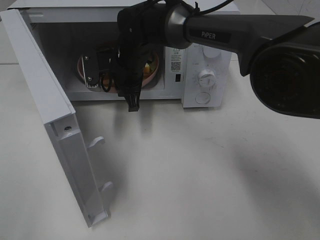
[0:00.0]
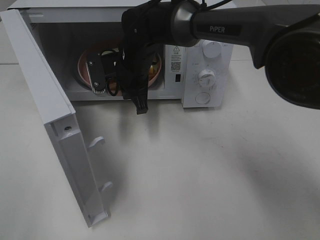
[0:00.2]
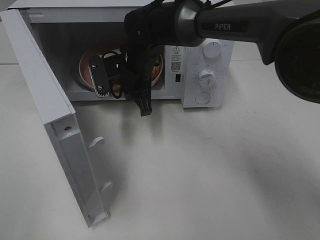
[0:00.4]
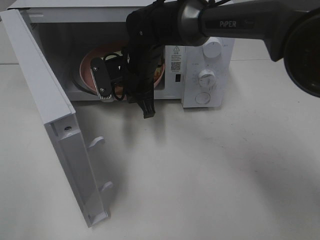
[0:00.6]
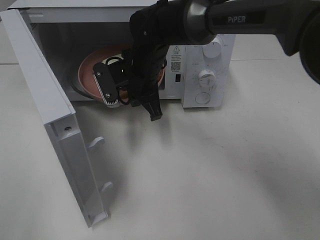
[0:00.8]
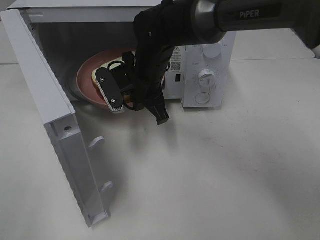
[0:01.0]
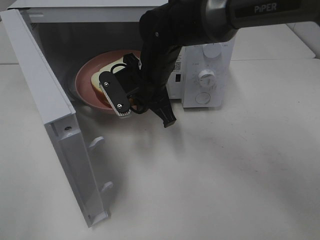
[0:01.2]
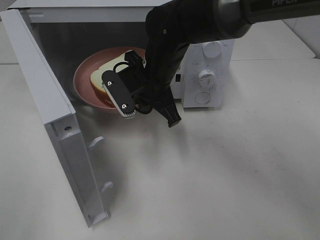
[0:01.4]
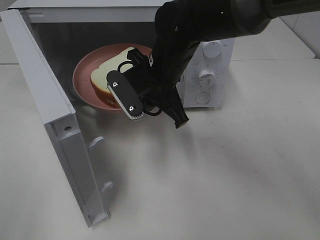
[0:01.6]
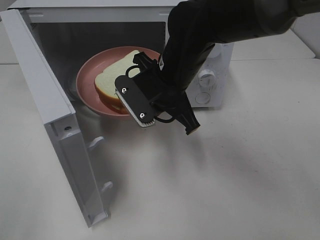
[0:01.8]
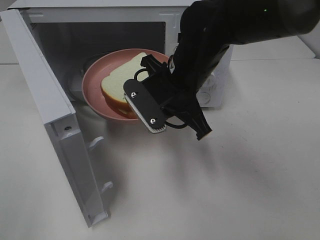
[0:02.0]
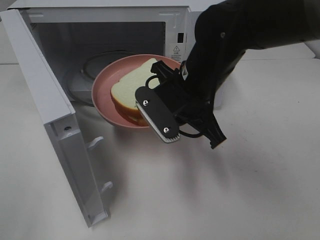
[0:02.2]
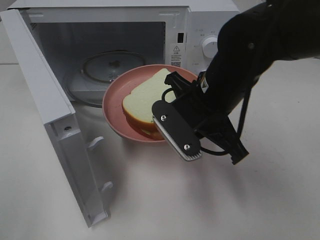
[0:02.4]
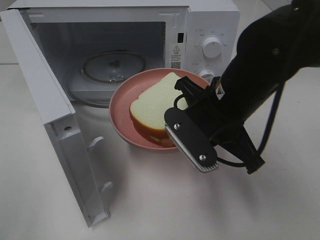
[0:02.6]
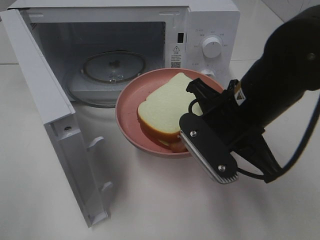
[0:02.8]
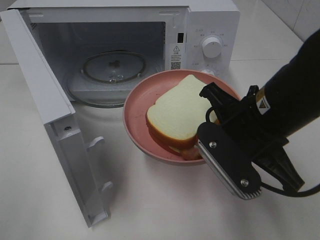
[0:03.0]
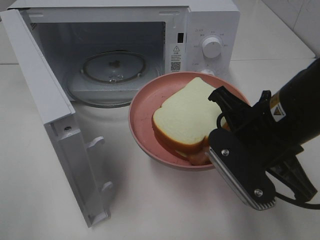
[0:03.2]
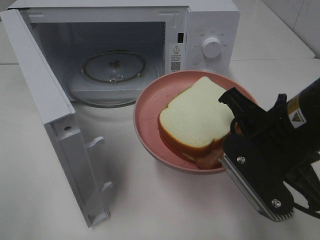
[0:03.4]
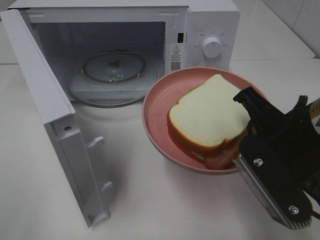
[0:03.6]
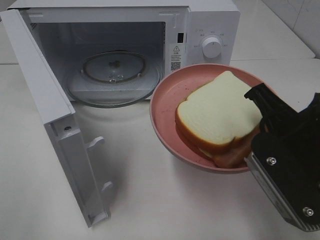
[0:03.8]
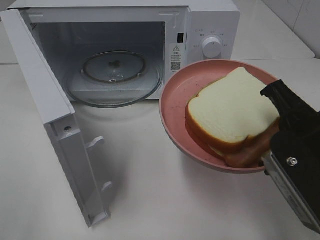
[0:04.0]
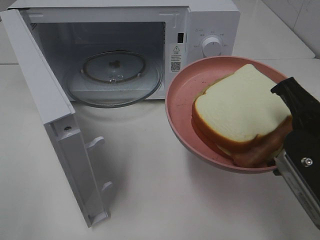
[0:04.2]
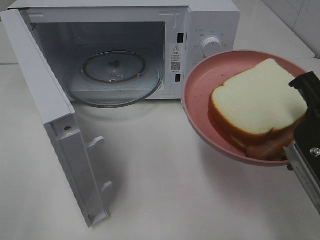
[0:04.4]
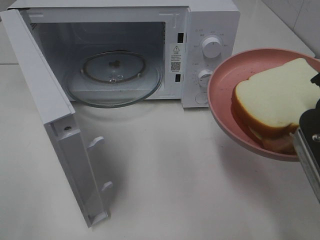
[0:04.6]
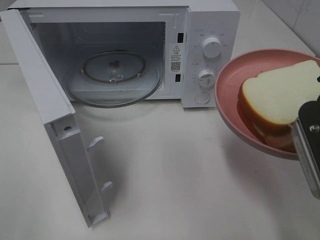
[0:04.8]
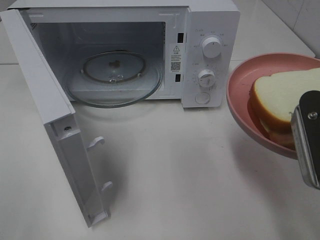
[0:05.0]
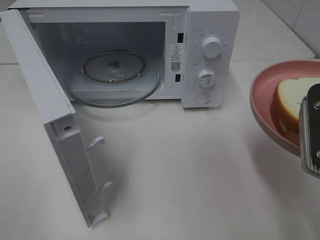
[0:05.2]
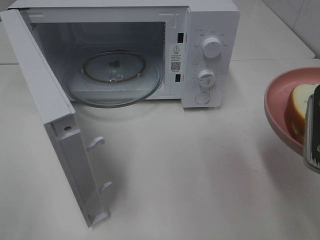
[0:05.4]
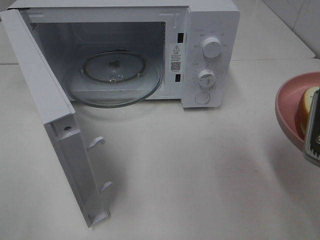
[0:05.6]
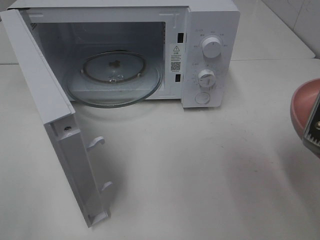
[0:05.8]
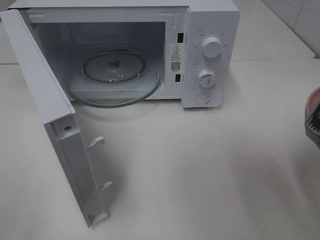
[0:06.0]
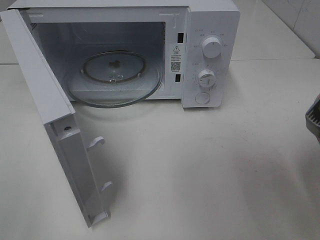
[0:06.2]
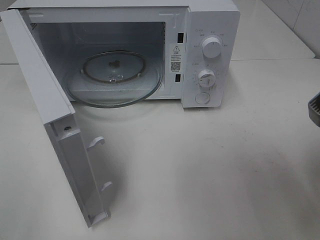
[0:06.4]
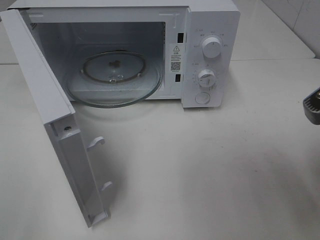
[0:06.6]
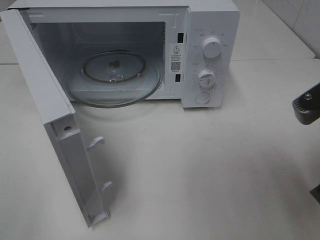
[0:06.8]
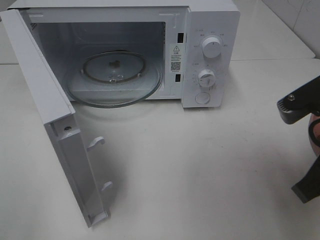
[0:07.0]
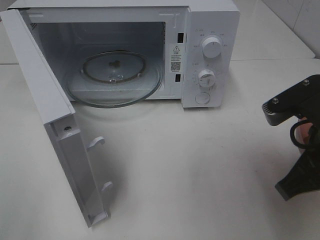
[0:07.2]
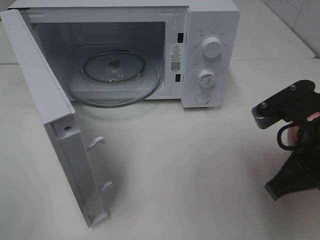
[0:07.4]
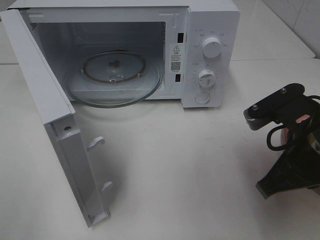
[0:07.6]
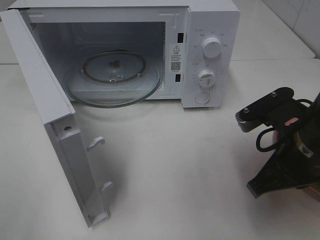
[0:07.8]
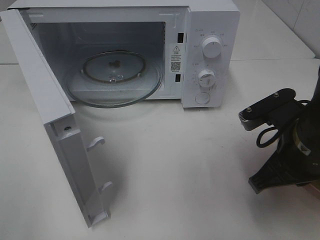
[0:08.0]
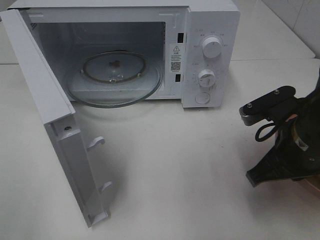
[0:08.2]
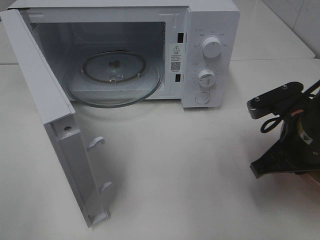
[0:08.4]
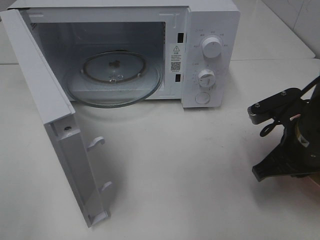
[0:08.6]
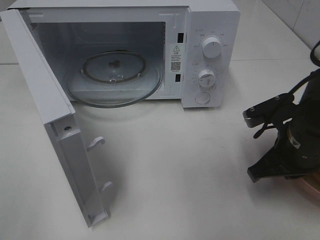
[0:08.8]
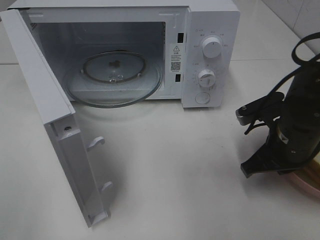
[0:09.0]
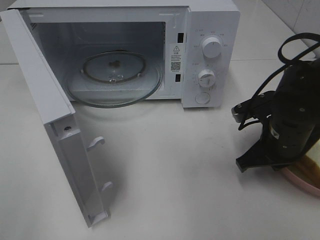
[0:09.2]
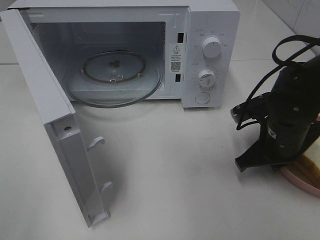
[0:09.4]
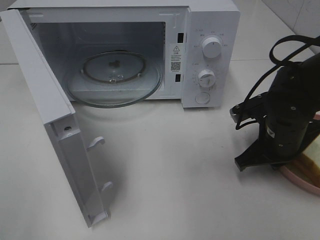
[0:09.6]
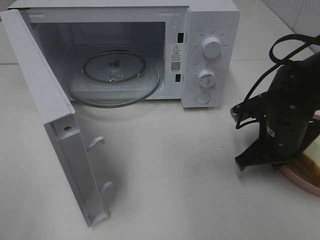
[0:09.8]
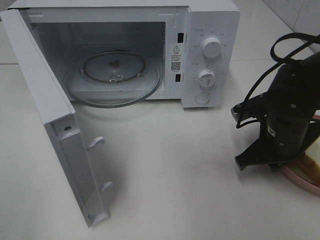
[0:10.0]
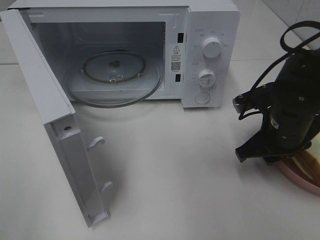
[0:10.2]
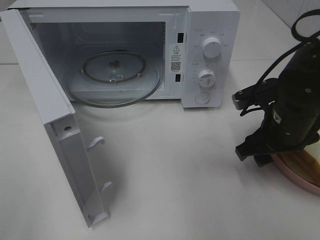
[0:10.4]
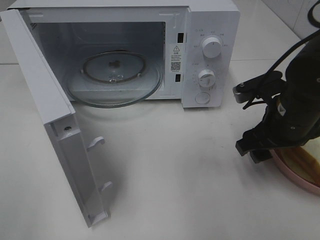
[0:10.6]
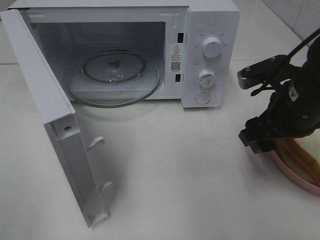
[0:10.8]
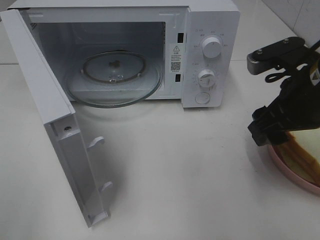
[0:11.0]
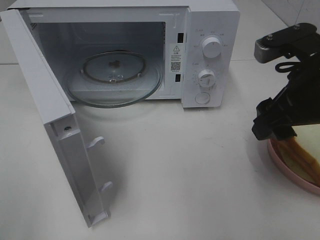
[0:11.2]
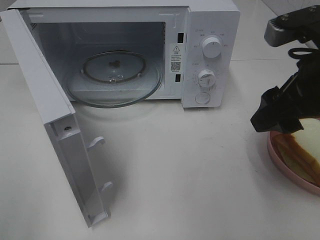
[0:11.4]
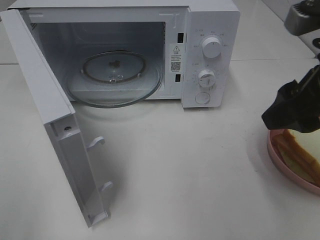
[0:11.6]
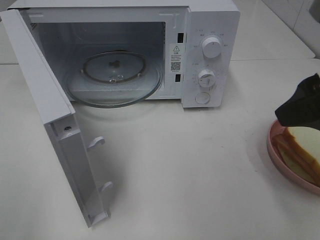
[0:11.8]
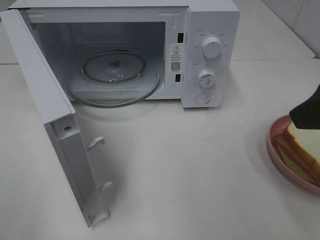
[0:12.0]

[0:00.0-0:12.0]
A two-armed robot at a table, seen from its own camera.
Task of the whole recording: Heat Sandwich.
Step, 0:00.0 to 0:11.2: Right hand: place the plate on the table.
0:00.0 to 0:01.6: The right gripper goes approximately 10 cm backward and to the right.
0:01.6 to 0:03.0: The right gripper heads backward and to the right, covering some 15 cm.
0:03.0 to 0:04.4: The right gripper is displaced to the right and backward by roughly 10 cm.
0:06.0 to 0:07.6: The right gripper heads downward and forward, covering about 10 cm.
0:07.6 to 0:09.0: The right gripper is displaced forward and downward by approximately 10 cm.
0:09.0 to 0:10.4: The right gripper opens up.
0:10.4 to 0:12.0: The right gripper heads upward and backward, covering some 20 cm.

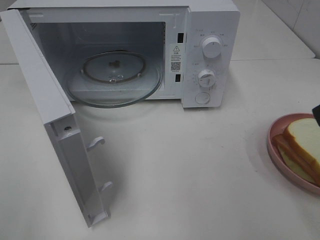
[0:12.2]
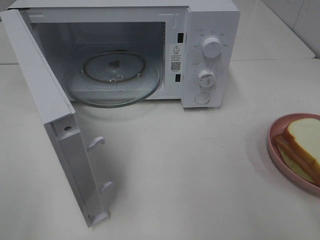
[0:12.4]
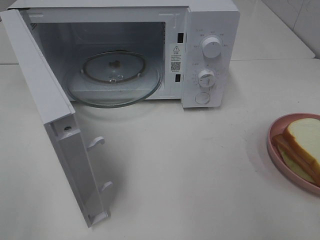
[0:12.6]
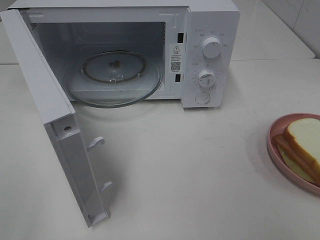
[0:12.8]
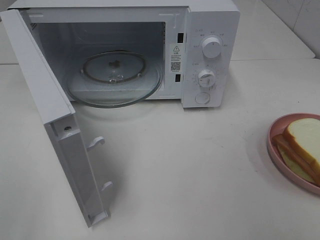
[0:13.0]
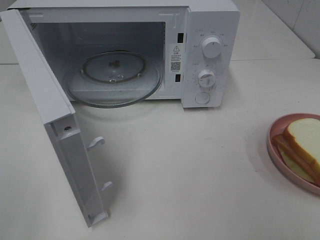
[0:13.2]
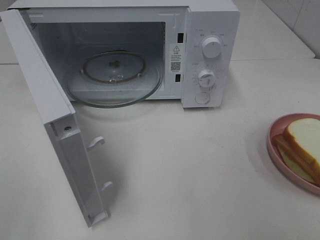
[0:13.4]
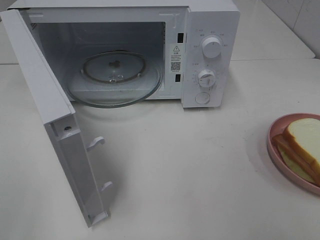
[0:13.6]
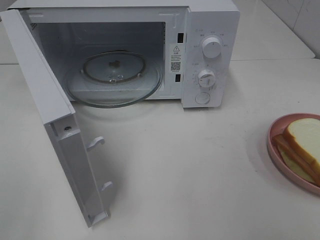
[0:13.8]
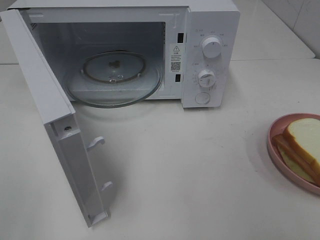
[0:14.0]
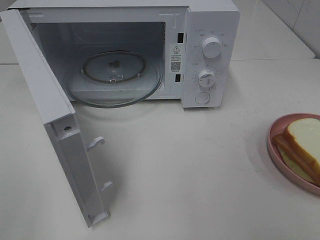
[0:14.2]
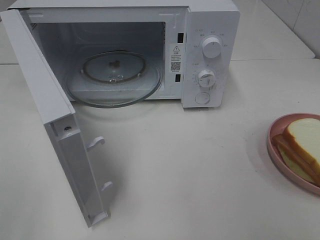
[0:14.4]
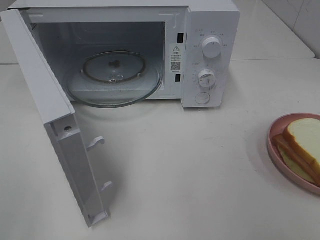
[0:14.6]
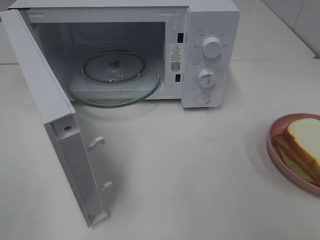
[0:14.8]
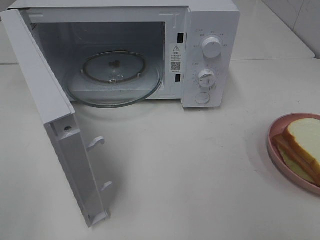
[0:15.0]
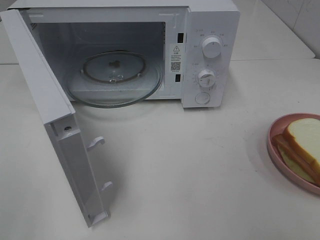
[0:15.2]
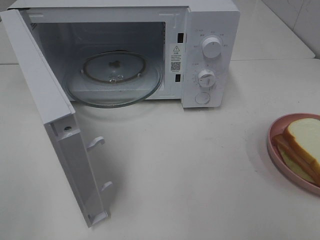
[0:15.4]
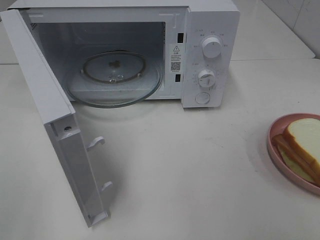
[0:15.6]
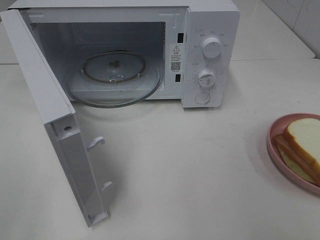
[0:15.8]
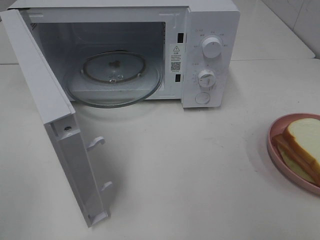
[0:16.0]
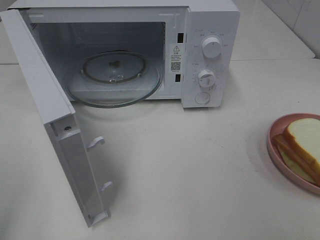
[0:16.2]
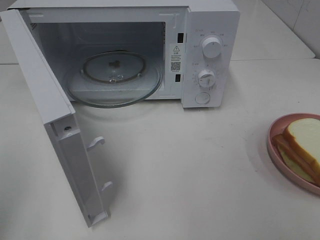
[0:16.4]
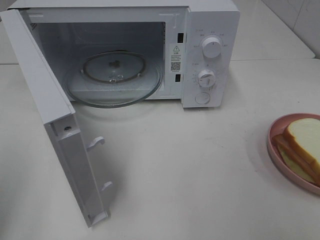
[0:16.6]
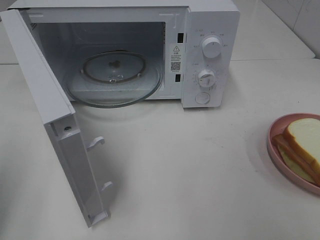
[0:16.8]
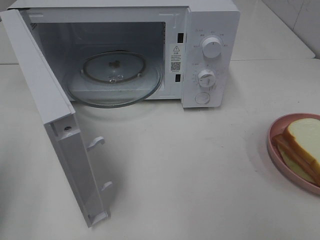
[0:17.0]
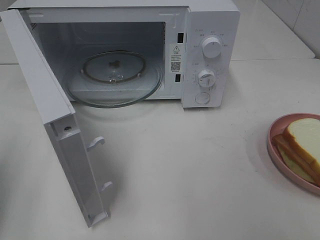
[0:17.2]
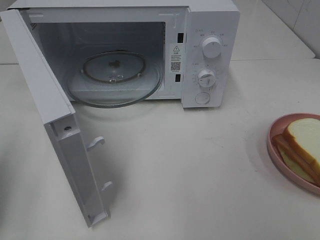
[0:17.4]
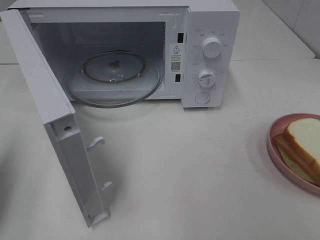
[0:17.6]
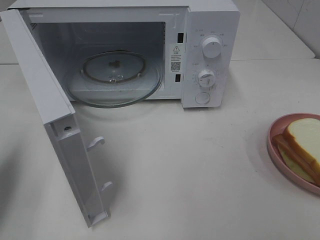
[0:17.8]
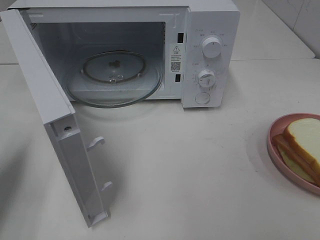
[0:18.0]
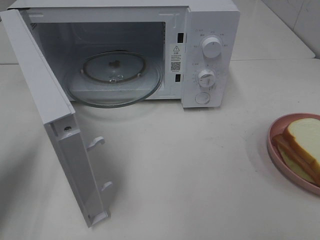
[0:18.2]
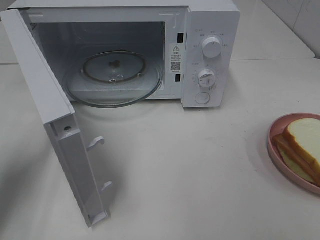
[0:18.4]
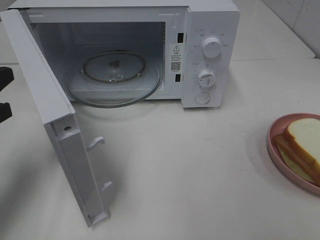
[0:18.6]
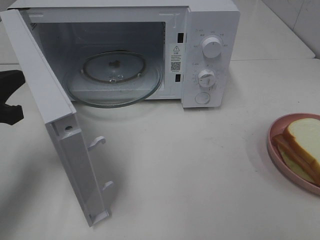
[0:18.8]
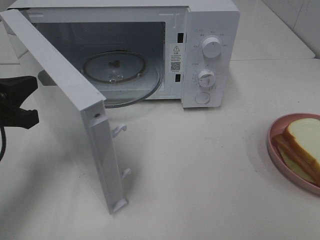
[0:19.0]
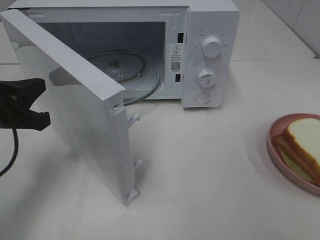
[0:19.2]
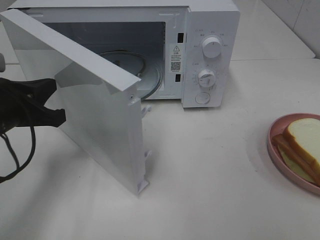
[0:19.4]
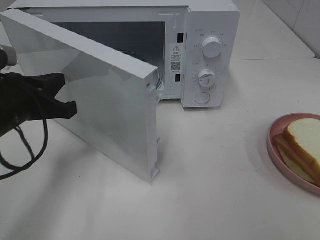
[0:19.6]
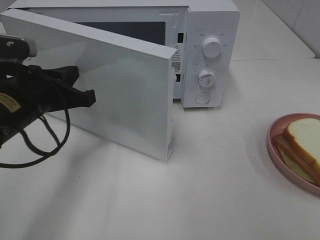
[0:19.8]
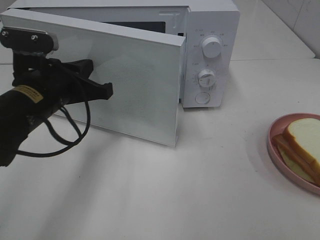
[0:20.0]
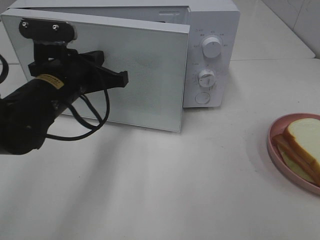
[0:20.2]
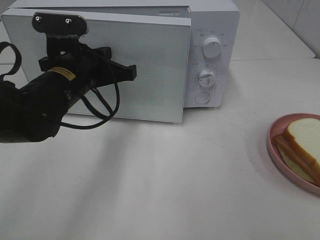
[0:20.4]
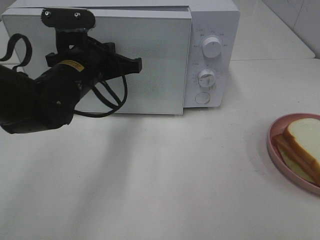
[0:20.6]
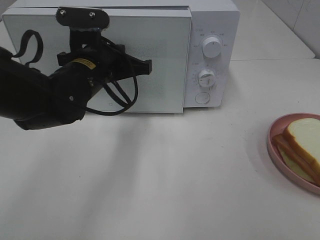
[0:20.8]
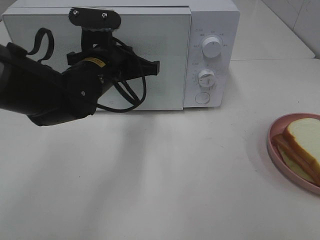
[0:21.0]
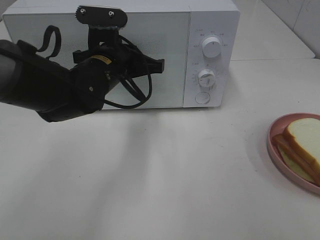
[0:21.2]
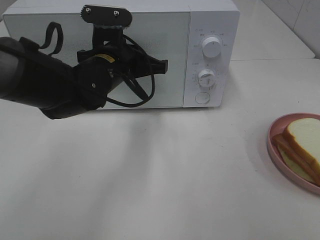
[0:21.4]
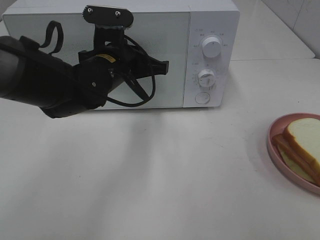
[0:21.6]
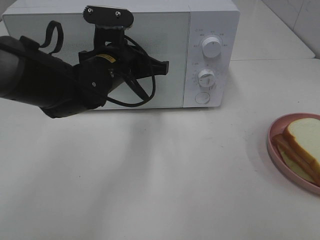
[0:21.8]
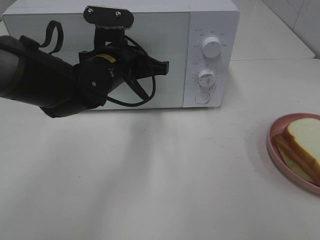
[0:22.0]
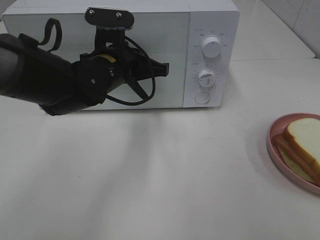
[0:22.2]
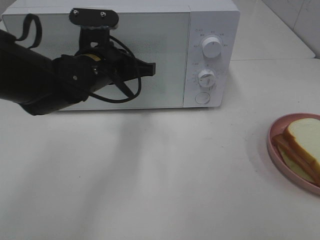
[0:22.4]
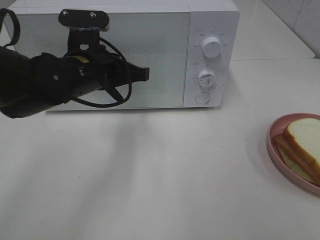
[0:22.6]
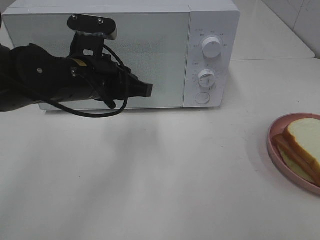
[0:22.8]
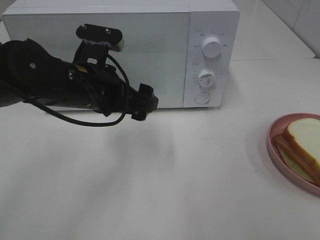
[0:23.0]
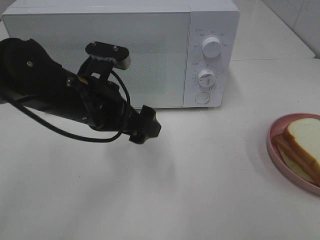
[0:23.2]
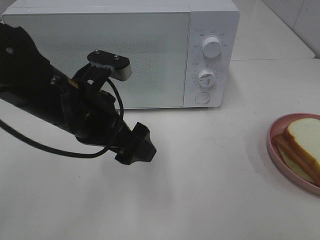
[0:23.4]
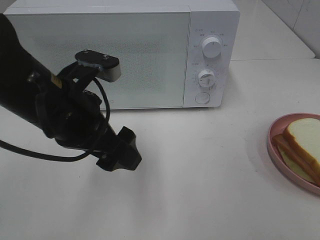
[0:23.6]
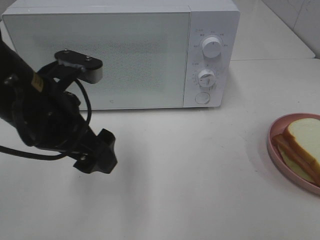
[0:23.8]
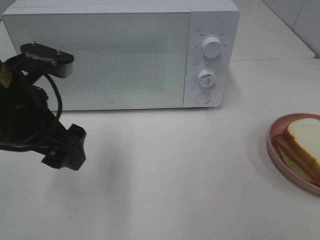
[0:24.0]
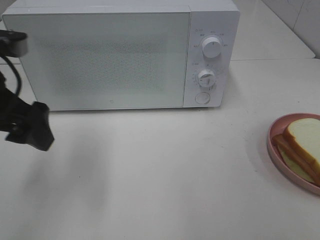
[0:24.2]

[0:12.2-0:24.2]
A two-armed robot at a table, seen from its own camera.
Task of the whole recording: Heat Sandwich.
Step, 0:12.2 to 0:22.4: Left hand: close the microwave door.
0:13.8 to 0:15.2: Both grippers stay about where they are.
0:16.6 to 0:18.2: The left gripper is displaced forward and downward by about 15 cm.
0:18.2 to 0:19.8: The left gripper is displaced to the right and forward by roughly 15 cm.
0:19.8 to 0:21.2: The left gripper heads to the right and forward, covering some 15 cm.
0:21.2 to 0:22.6: The grippers make only small movements.
0:22.6 to 0:24.2: The left gripper travels to the left, backward and upward by some 15 cm, and opens its fingers.
